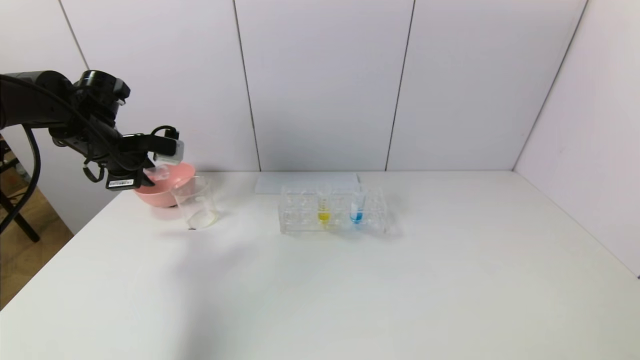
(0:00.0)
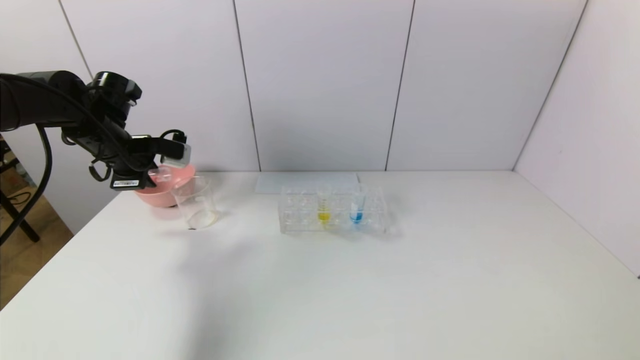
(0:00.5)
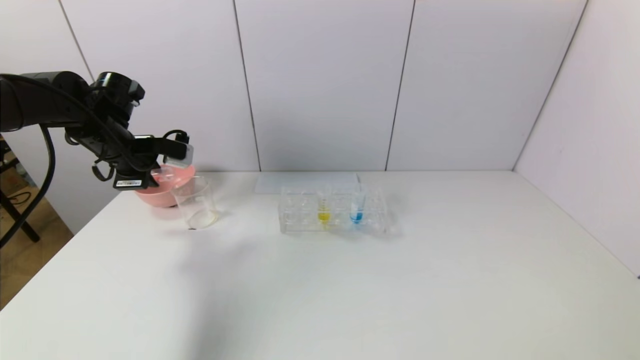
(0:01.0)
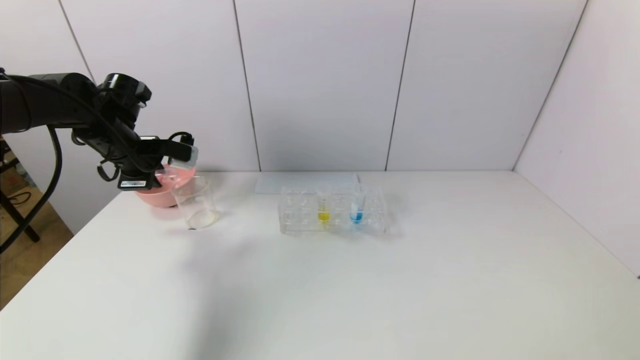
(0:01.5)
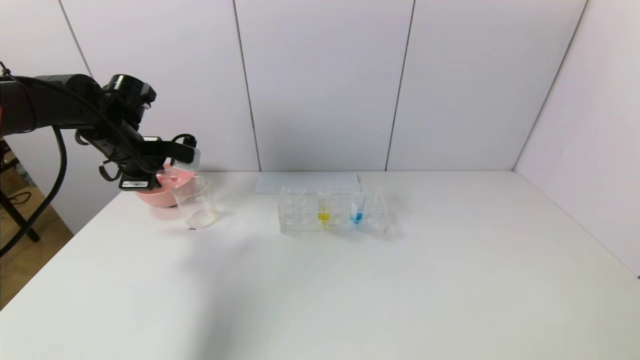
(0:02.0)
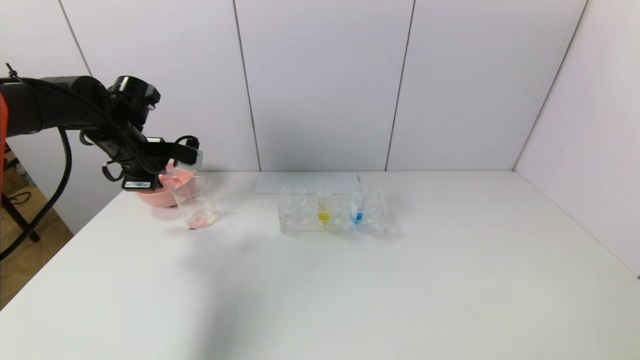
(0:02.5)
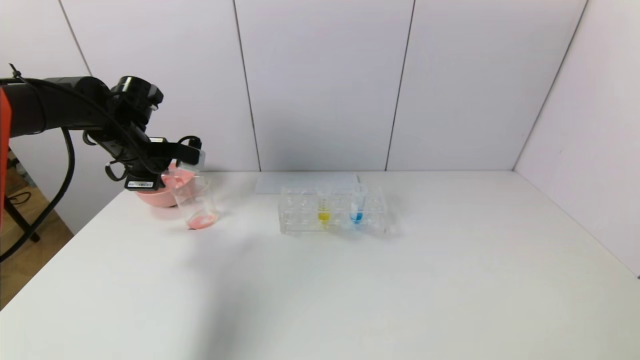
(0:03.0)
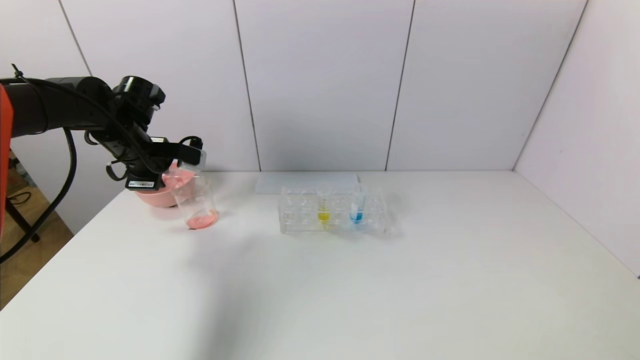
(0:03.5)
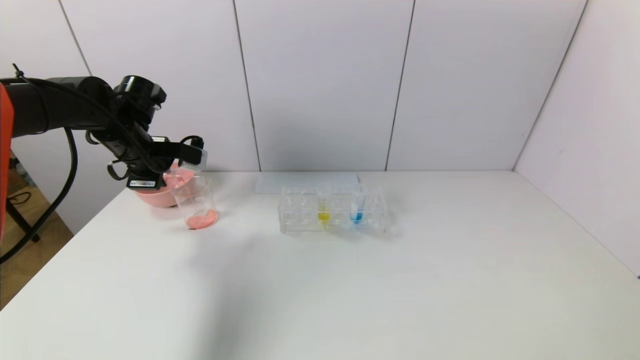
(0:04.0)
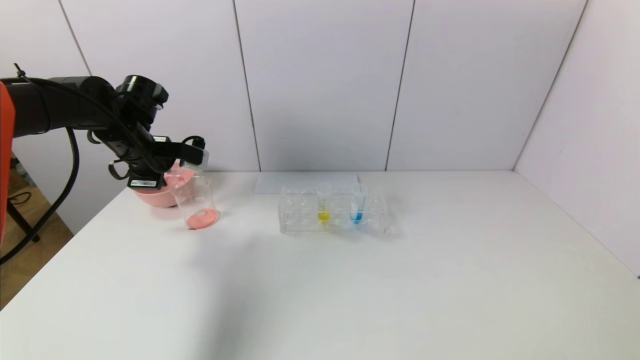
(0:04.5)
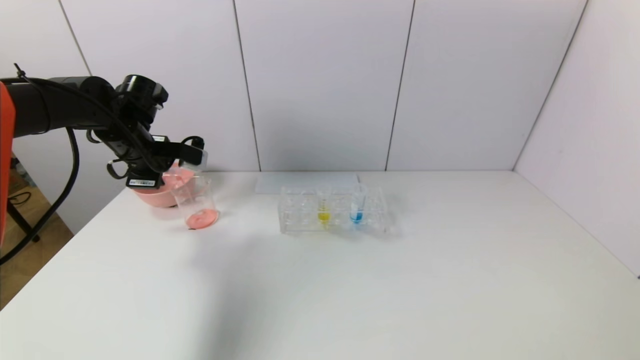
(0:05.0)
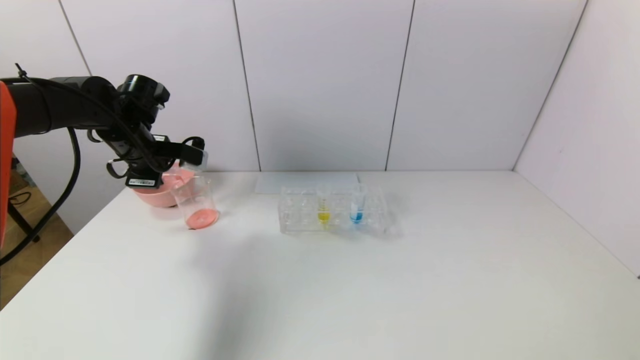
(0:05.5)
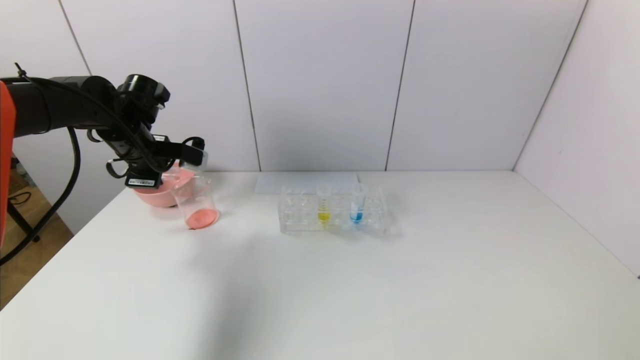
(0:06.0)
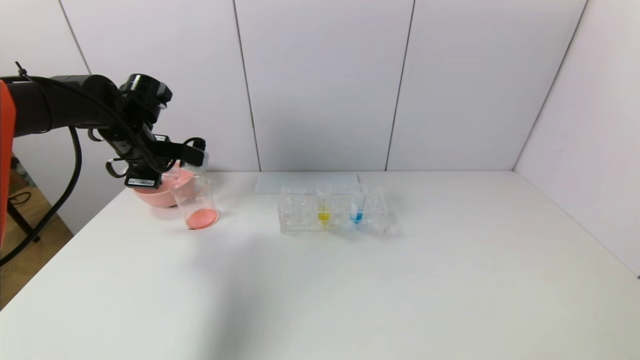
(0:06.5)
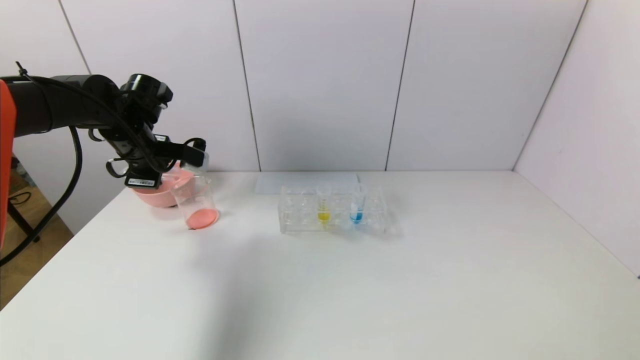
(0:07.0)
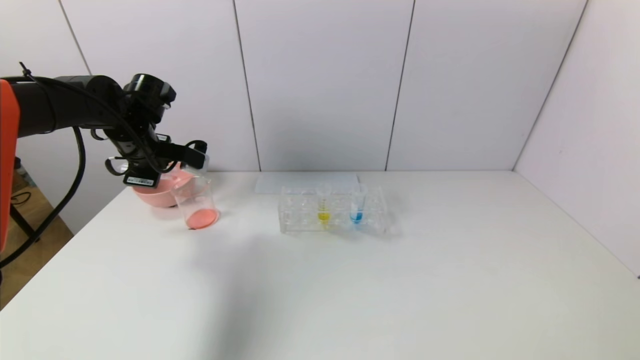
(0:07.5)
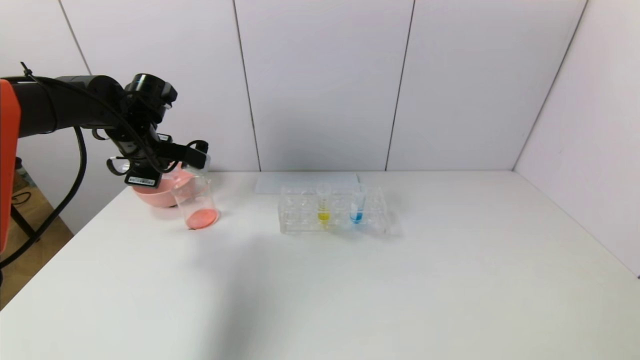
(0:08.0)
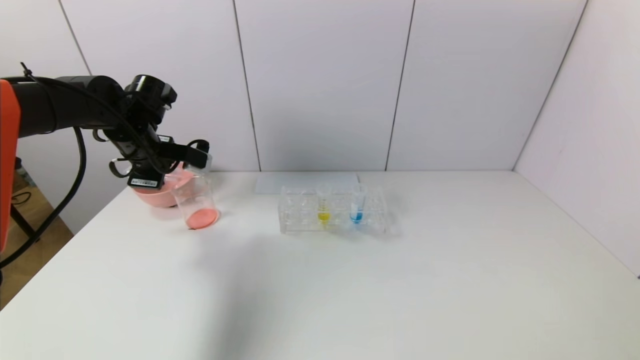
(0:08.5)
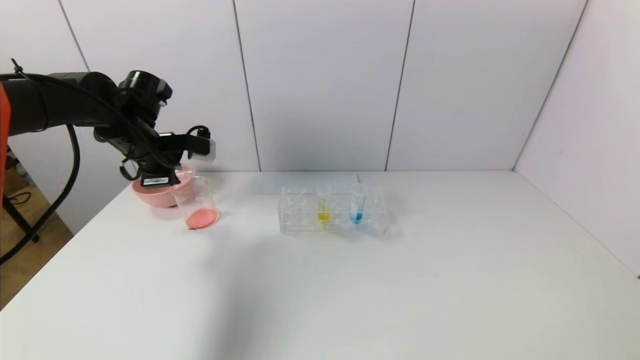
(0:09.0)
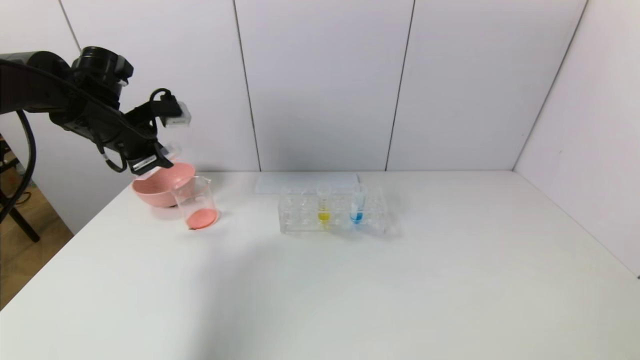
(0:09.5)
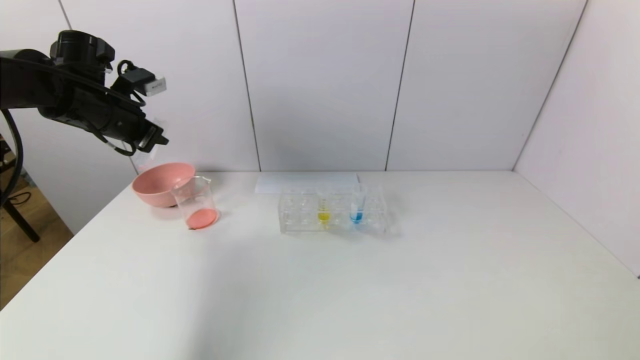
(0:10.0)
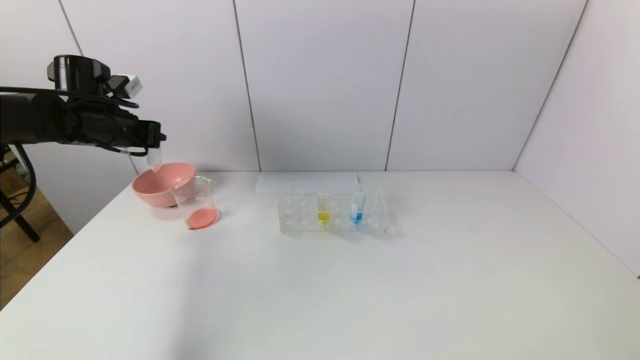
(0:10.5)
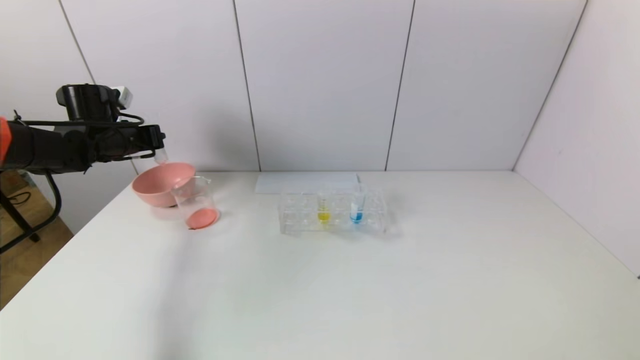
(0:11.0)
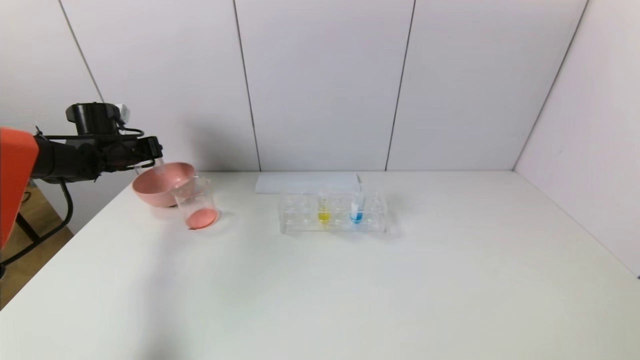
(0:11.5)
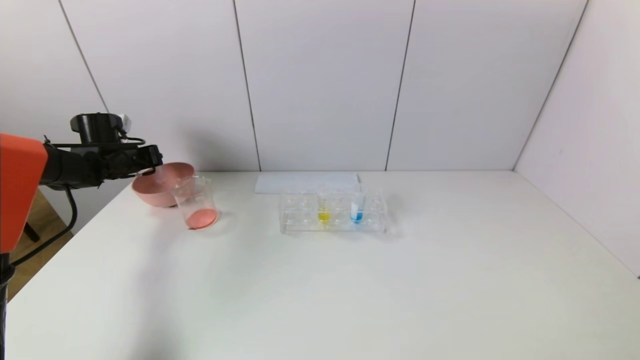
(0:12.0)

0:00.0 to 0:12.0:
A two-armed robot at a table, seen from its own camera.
Task of the whole recording: pick up the test tube with yellow pigment and the test tube with red pigment by grippers and pour them into the beaker.
Step, 0:00.0 to 0:08.0: Pour the red reagent into the graduated cylinder with the left gripper.
0:00.0 to 0:02.0: The grippers stay close to where they were, moving slightly.
0:02.0 to 0:04.0: Both grippers stay about where they are.
0:04.0 to 0:06.0: Both grippers stay about where they are.
0:06.0 to 0:08.0: The grippers move only a little.
0:08.0 to 0:10.0: The left gripper travels upward by about 5 cm.
0:10.0 to 0:12.0: The left gripper moves downward, forward and to the left, about 20 cm.

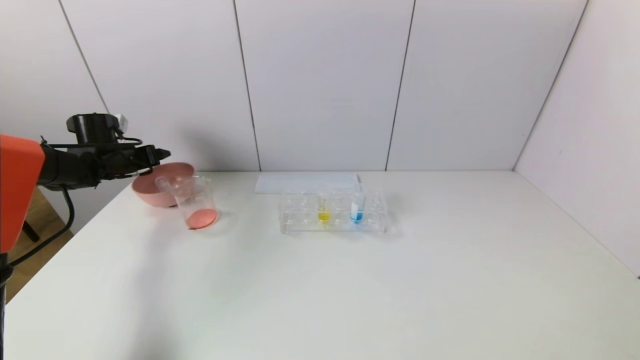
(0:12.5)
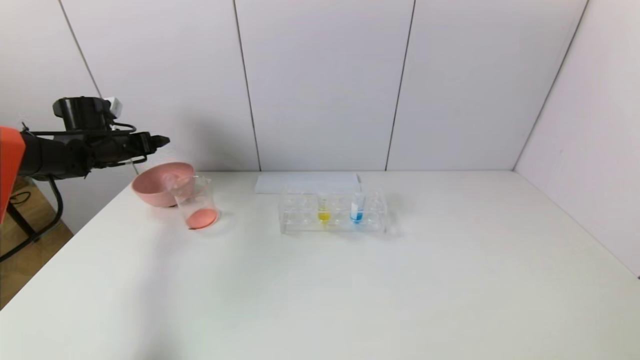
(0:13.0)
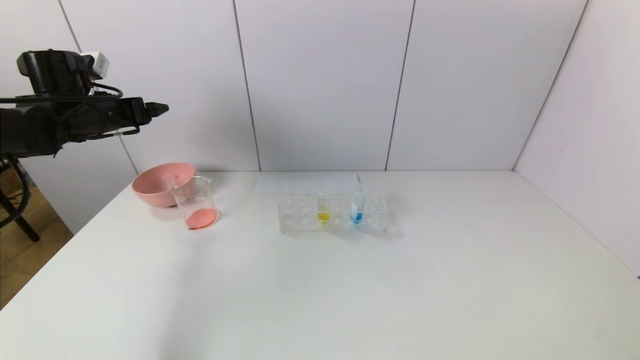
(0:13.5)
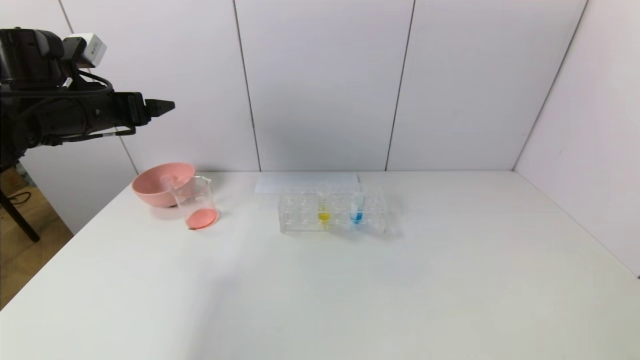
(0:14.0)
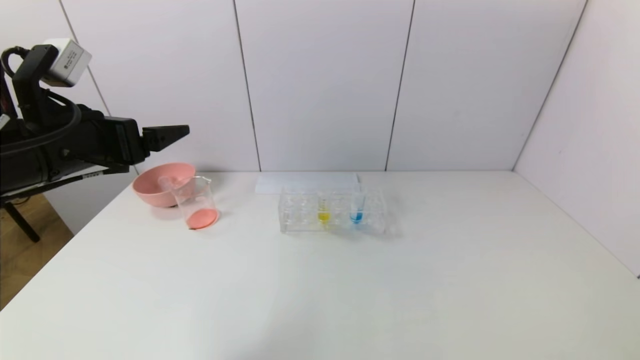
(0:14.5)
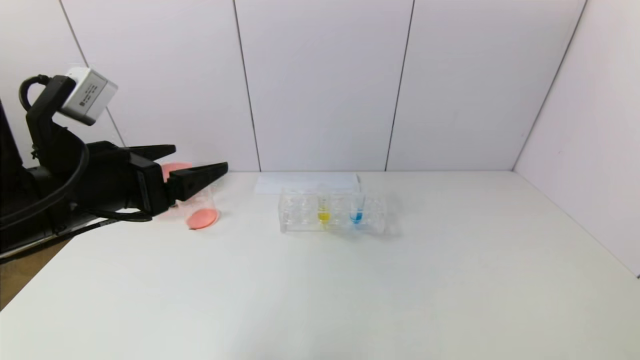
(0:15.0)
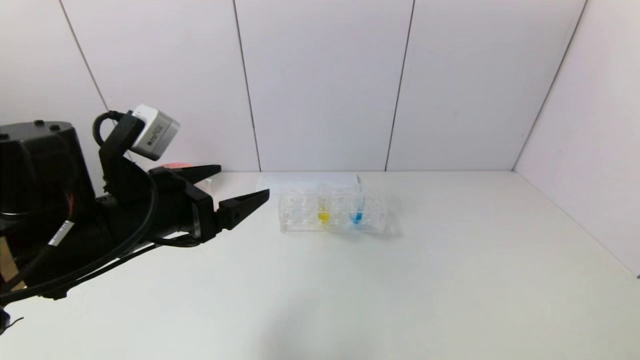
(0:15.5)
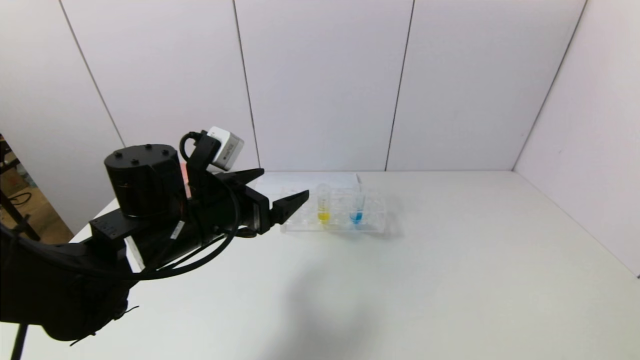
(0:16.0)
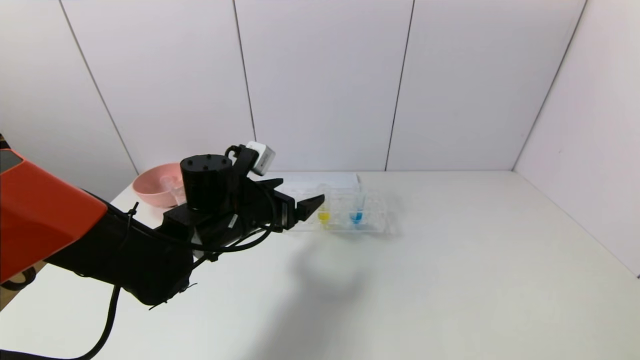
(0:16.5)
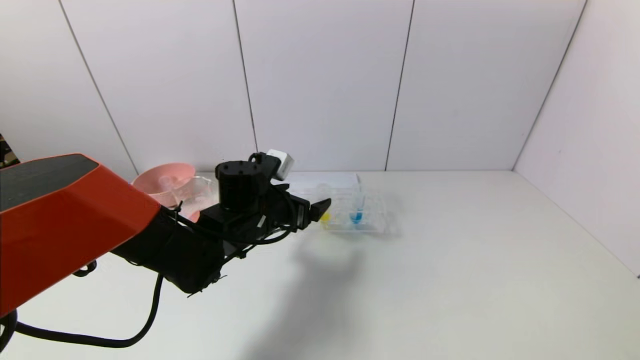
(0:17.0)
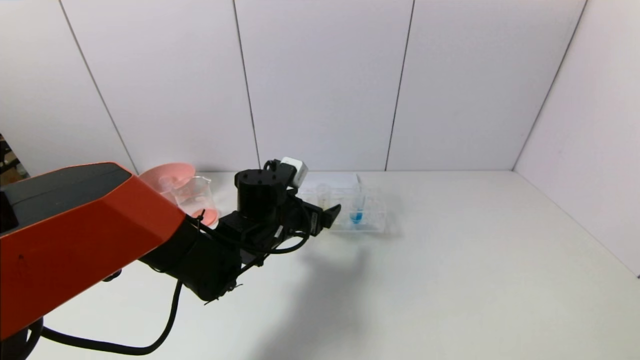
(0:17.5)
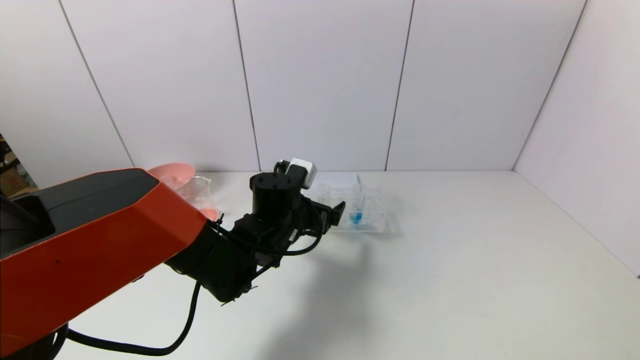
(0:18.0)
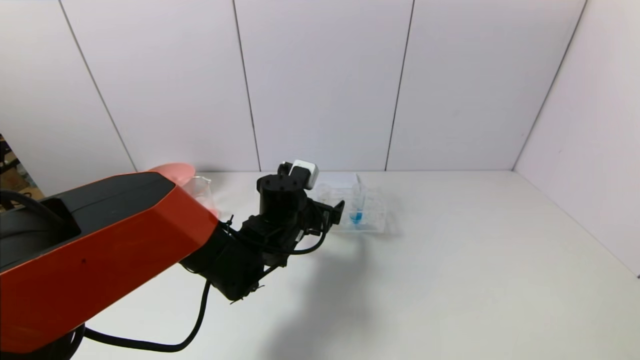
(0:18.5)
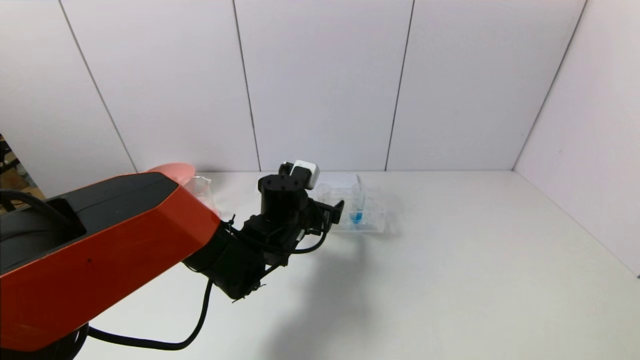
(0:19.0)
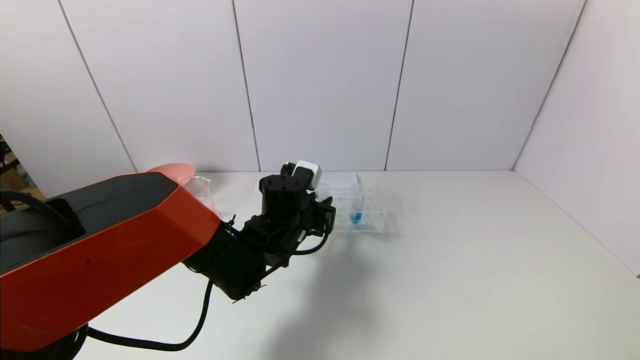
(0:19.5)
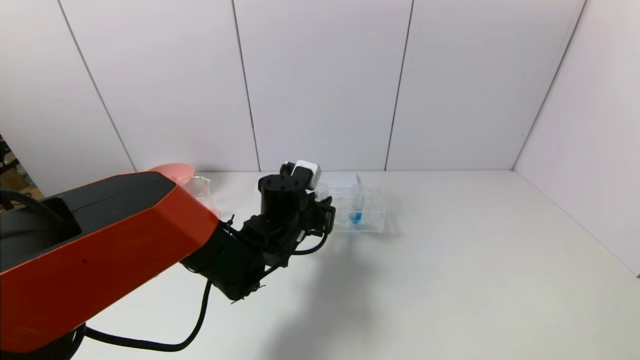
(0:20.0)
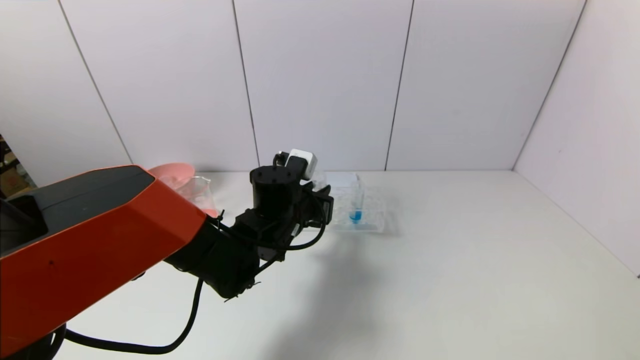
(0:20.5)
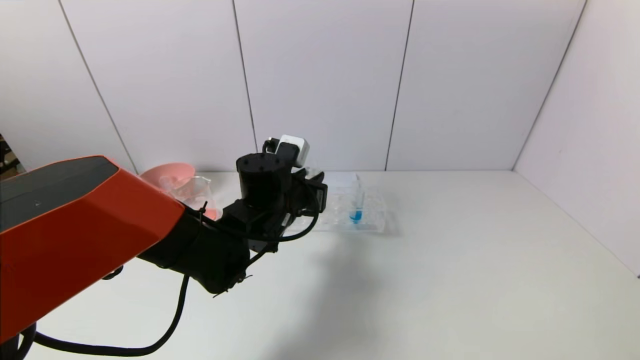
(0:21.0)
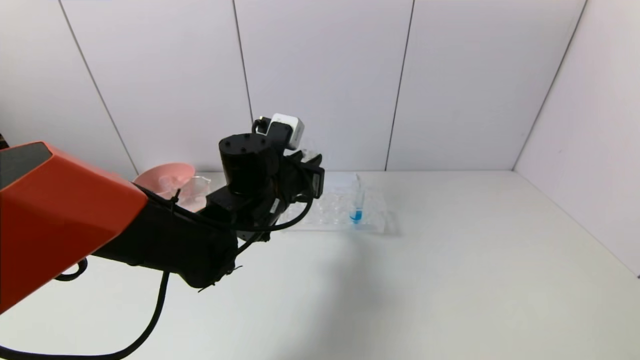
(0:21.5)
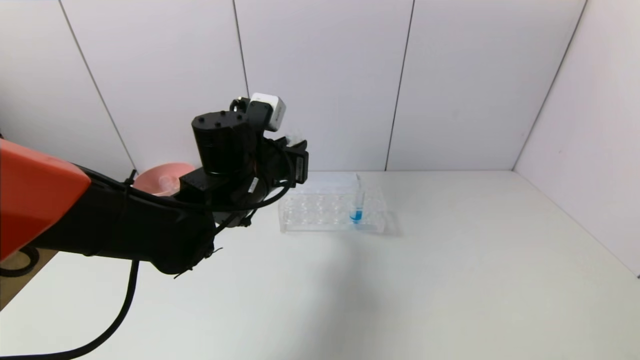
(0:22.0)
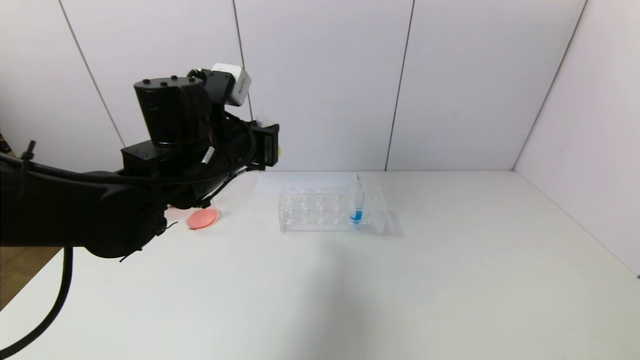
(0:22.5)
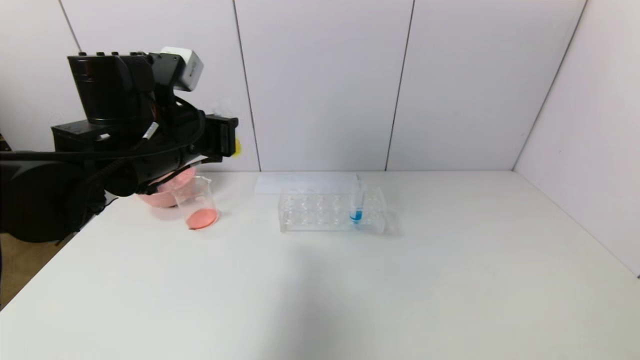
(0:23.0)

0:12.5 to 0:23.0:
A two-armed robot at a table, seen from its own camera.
Task of the whole recording: pick up the test tube with yellow pigment and the test tube with red pigment by grippers and pour them into the beaker.
Step, 0:12.5 to 0:20.0: Grasp the yellow reagent with the left gripper.
0:12.5 to 0:14.5: The left gripper travels backward, to the right and upward by approximately 30 cm.
0:14.5 to 0:16.5: The left gripper is displaced to the right, downward and forward by approximately 20 cm.
0:16.5 to 0:19.0: The left gripper moves to the right, some 10 cm.
0:19.0 to 0:21.0: The left gripper moves roughly 5 cm, and closes.
0:21.0 to 0:23.0: The left gripper heads to the left and upward, covering some 15 cm.
